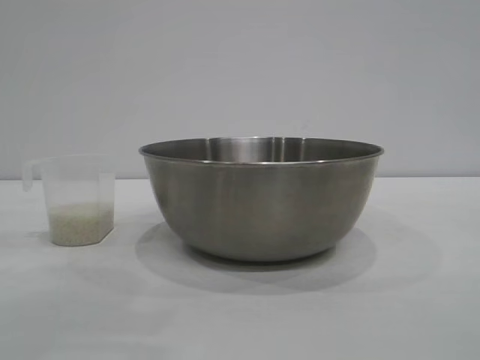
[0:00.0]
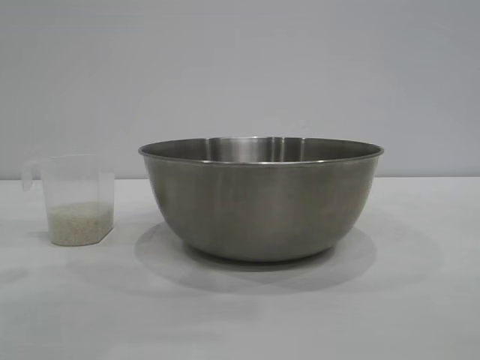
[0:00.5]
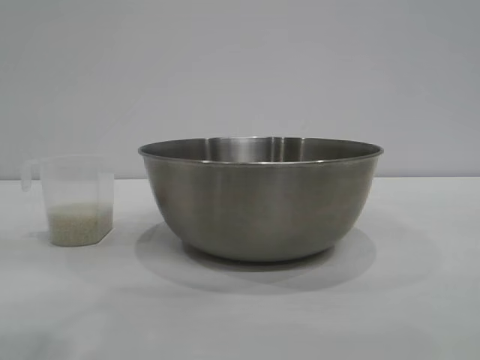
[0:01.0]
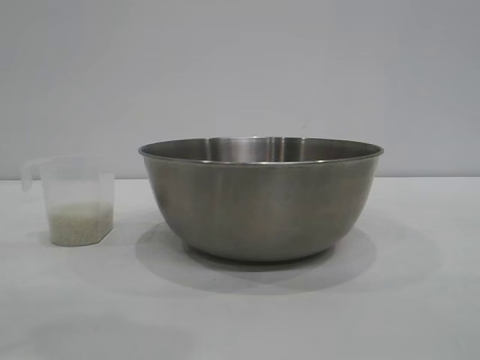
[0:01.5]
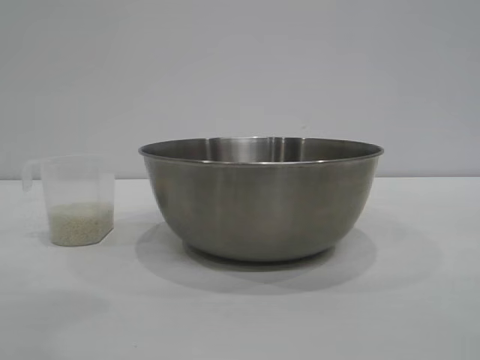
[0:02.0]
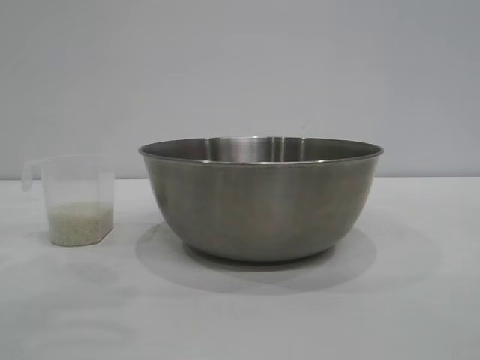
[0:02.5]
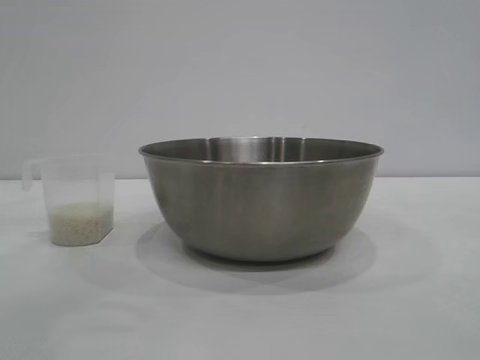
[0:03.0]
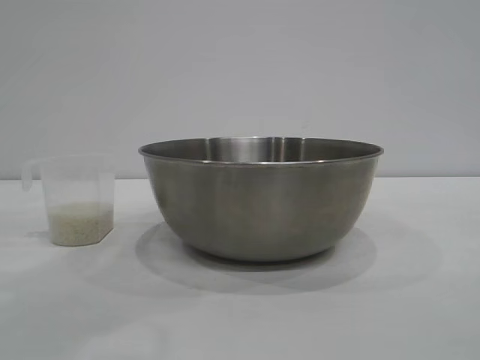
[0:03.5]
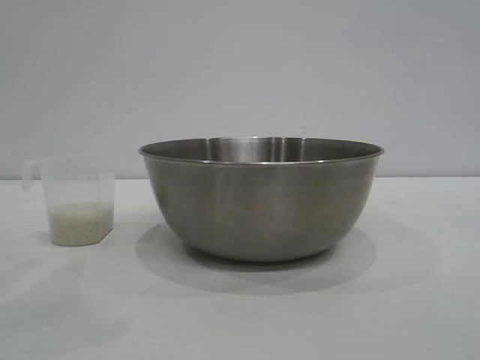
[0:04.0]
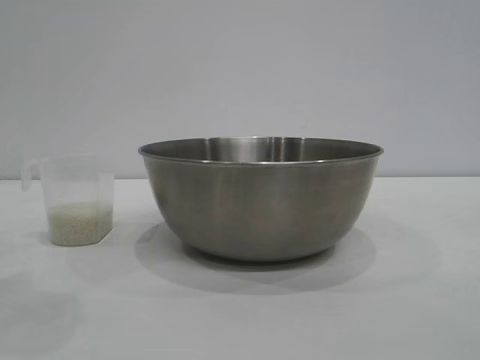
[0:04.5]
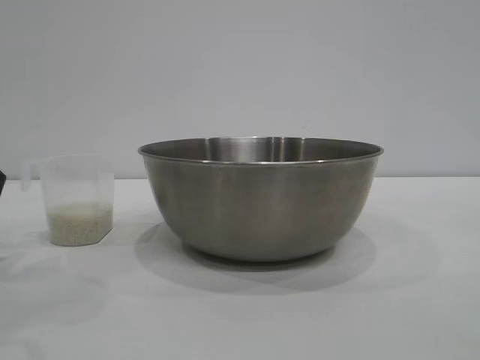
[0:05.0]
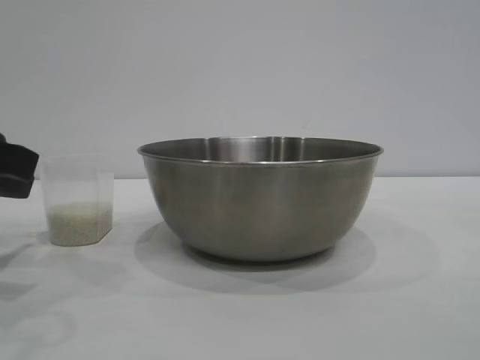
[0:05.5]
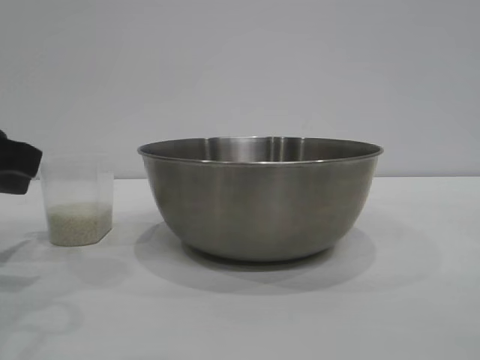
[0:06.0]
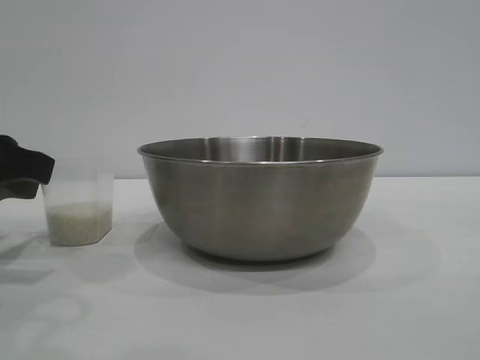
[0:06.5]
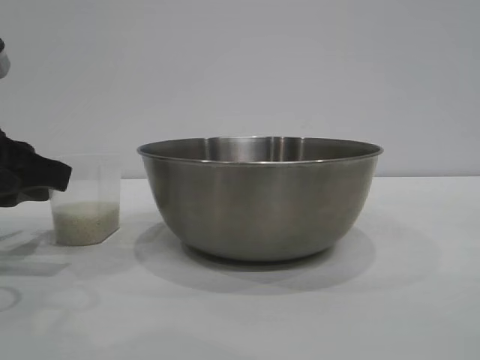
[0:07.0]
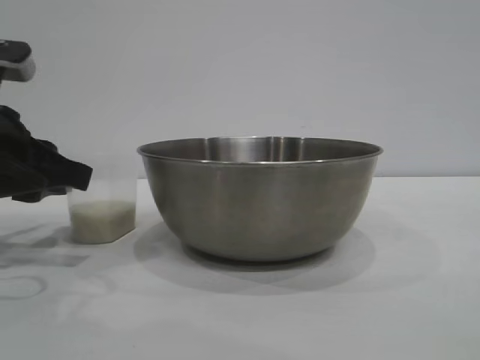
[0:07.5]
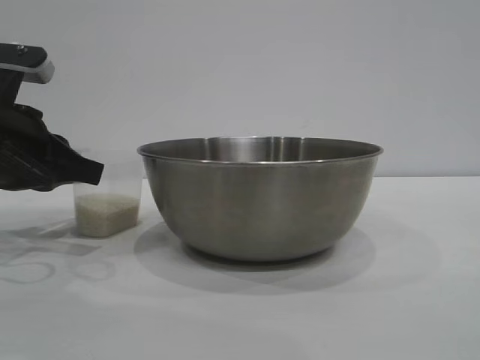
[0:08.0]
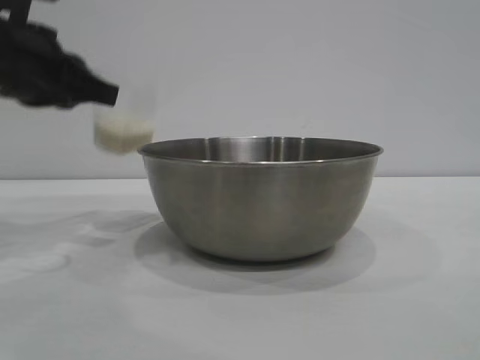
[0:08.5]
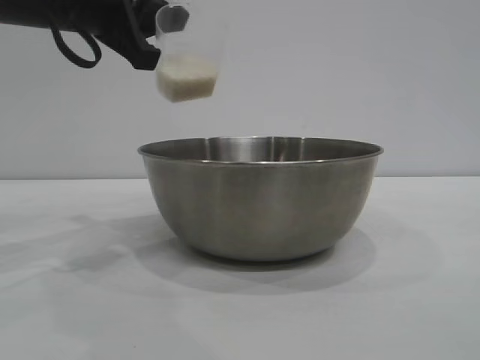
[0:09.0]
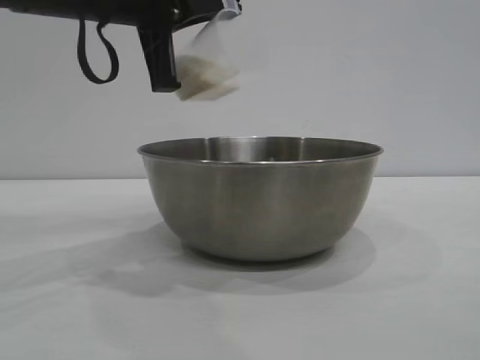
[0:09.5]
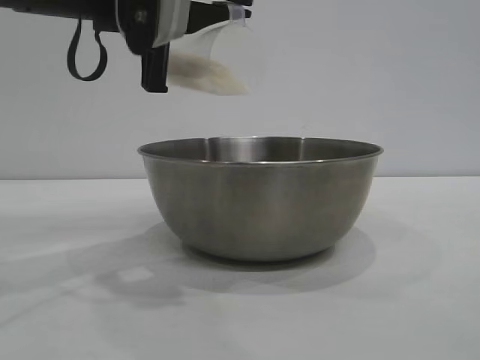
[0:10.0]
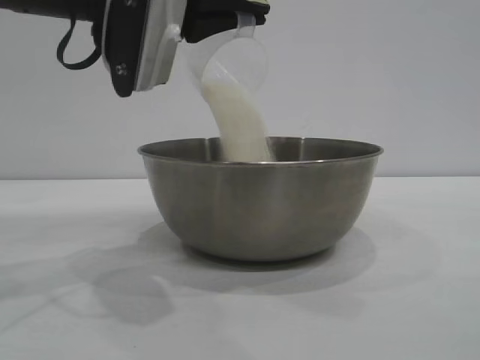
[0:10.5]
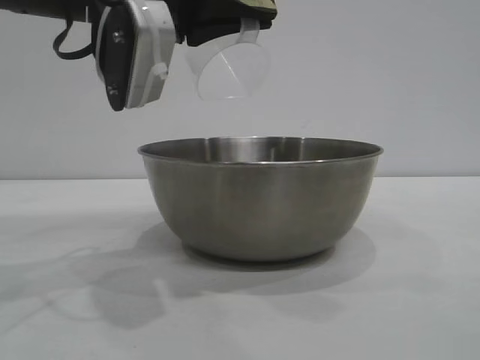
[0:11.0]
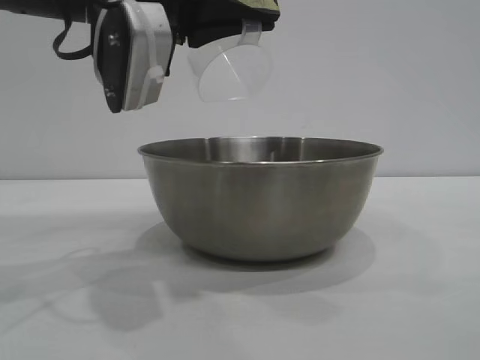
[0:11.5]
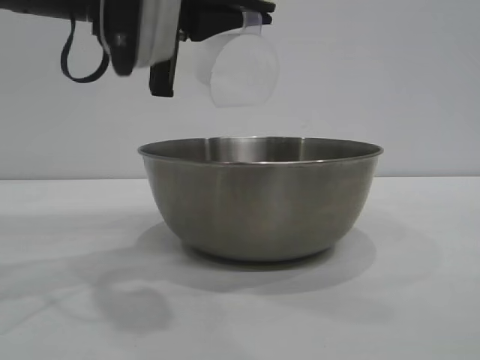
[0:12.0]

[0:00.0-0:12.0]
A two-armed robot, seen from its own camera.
Task of the whole recording: the right gripper grasp the rice container and place it in the center of the table, the left gripper grasp the rice scoop and pour the rice into the rice container.
Step, 0:00.0 to 0:08.0: Pick up the cup with rice in it with the left gripper.

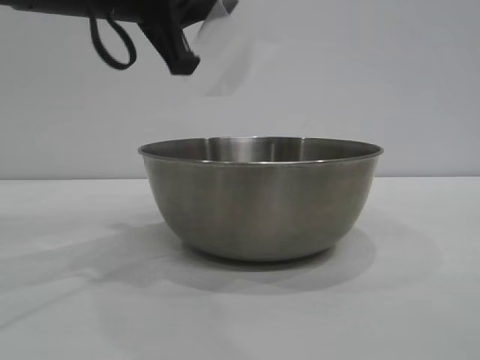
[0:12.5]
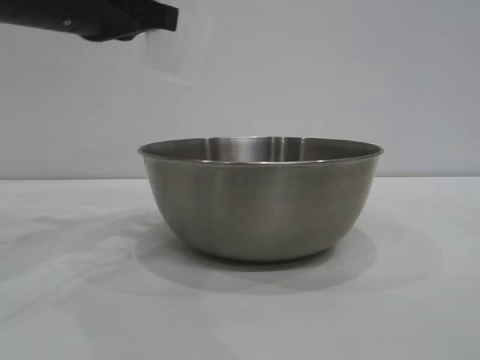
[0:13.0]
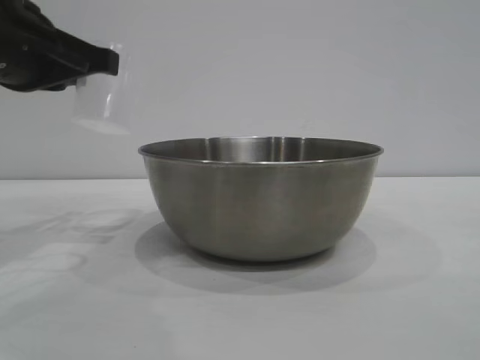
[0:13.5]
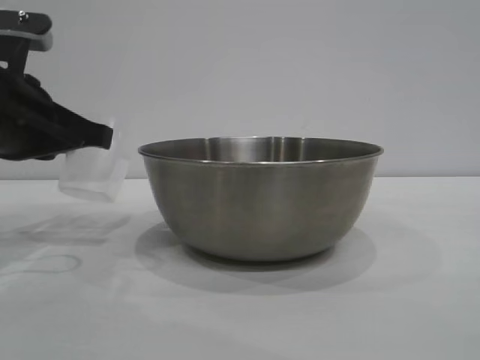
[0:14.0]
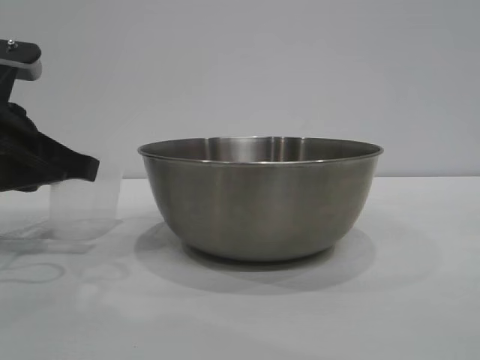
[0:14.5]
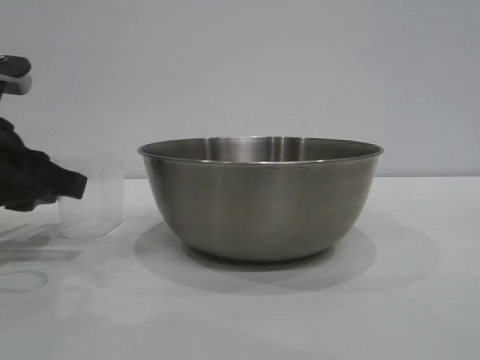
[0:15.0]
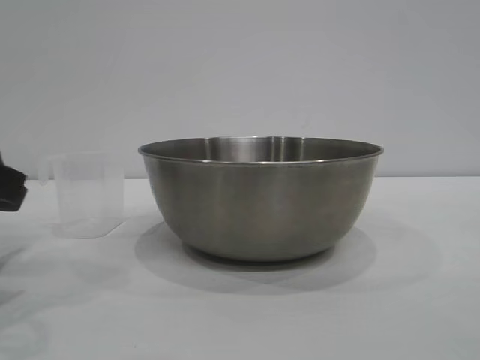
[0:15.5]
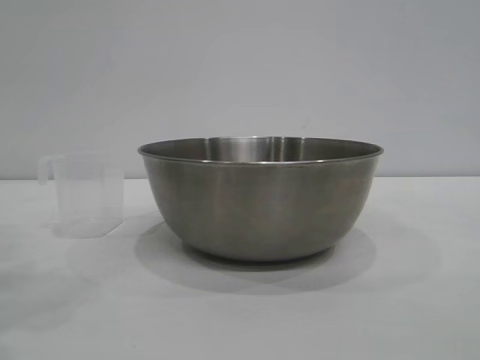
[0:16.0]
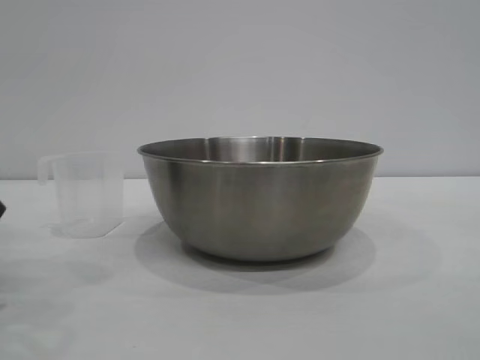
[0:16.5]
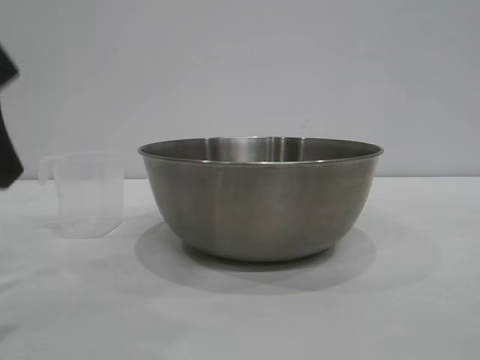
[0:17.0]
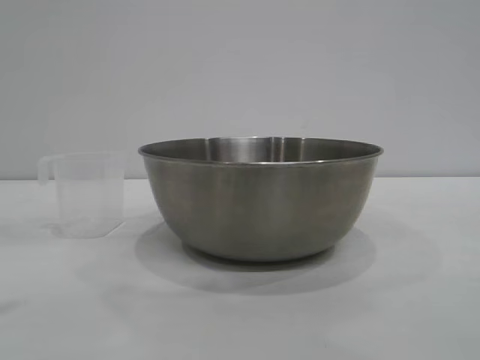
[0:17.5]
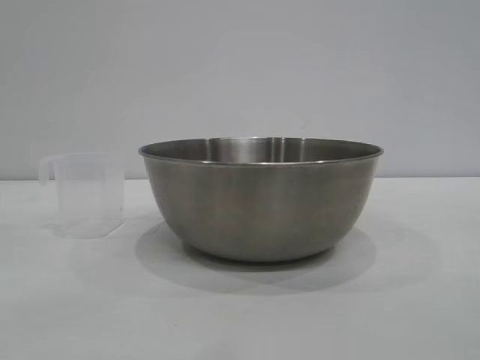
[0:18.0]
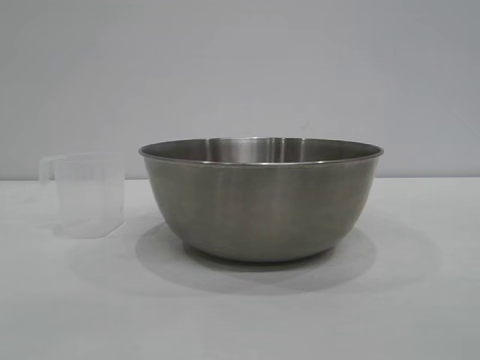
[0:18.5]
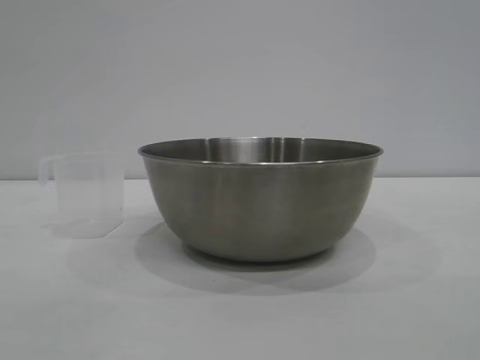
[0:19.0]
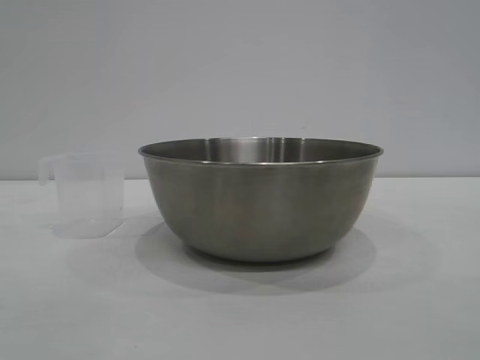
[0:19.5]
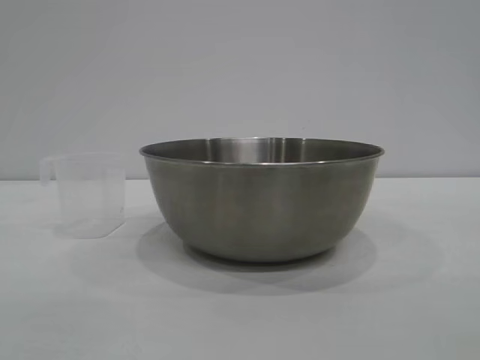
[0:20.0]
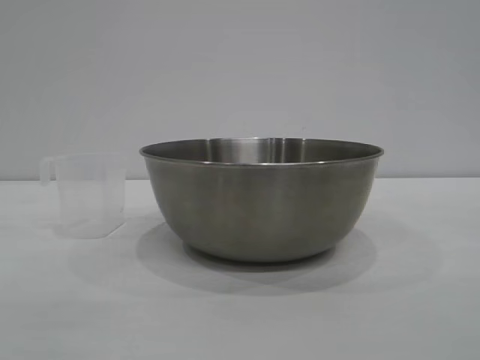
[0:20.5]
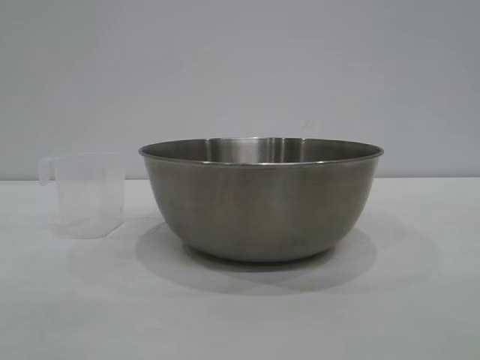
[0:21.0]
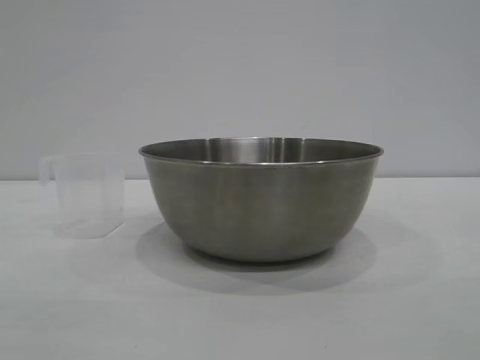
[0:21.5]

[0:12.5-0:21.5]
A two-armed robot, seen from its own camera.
Task of the whole recording: the right gripper grasp the rice container and place it in the center of the table, the left gripper grasp the rice scoop and pour the rice into the rice container.
Step, 0:13.0 to 0:15.0: Place the cup on the table with the left gripper.
